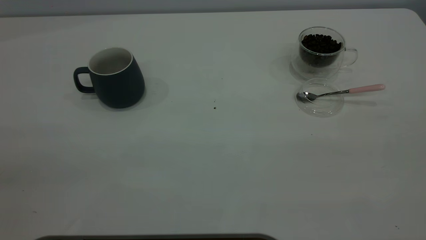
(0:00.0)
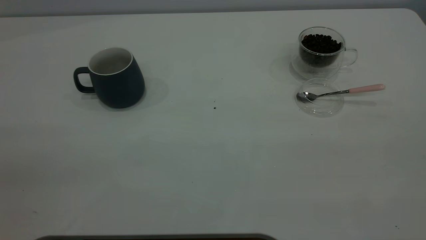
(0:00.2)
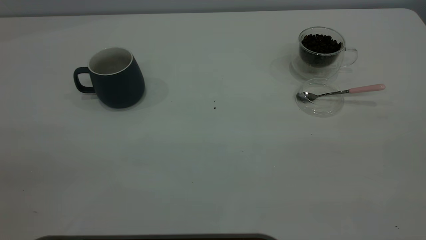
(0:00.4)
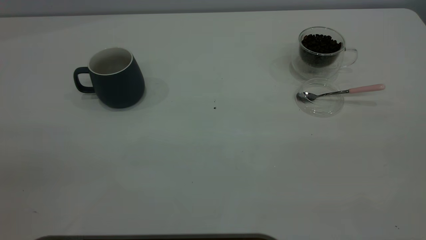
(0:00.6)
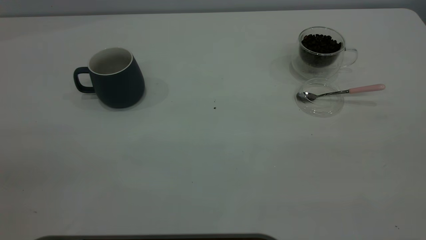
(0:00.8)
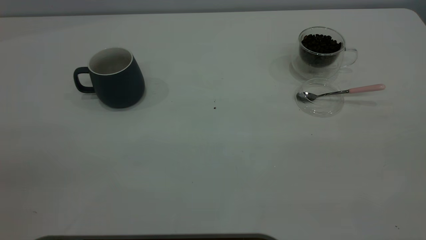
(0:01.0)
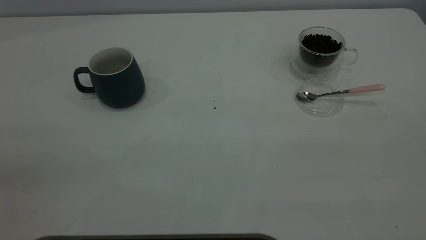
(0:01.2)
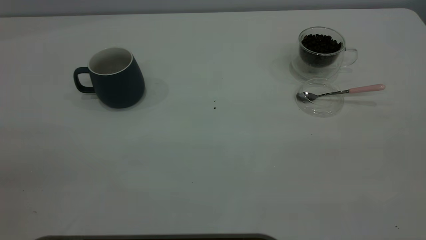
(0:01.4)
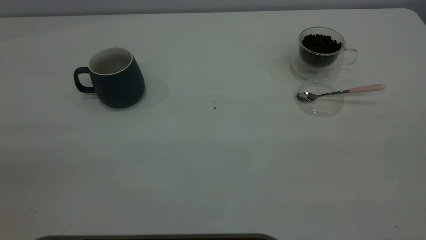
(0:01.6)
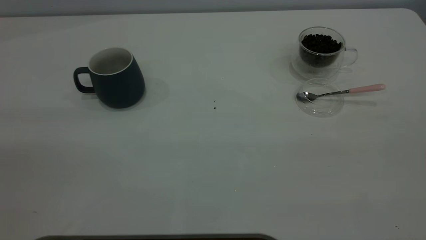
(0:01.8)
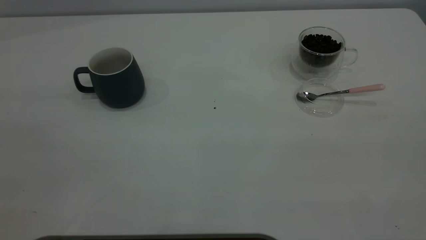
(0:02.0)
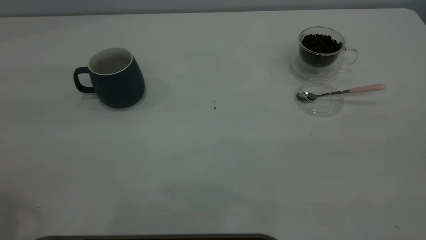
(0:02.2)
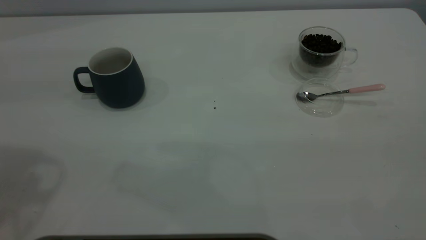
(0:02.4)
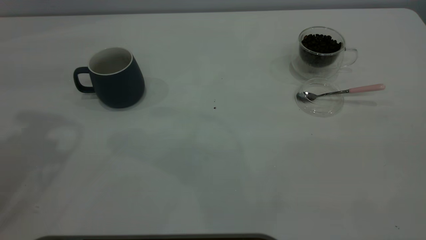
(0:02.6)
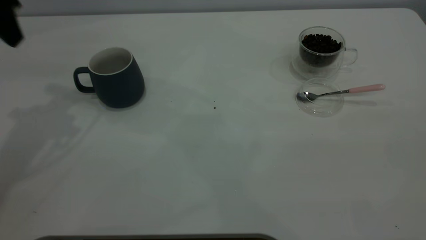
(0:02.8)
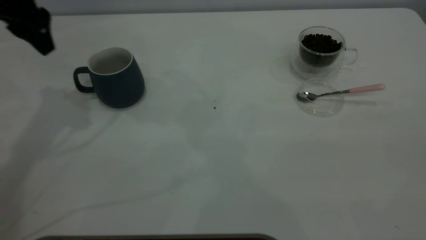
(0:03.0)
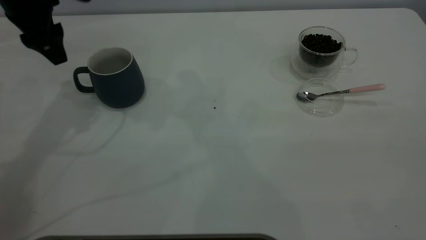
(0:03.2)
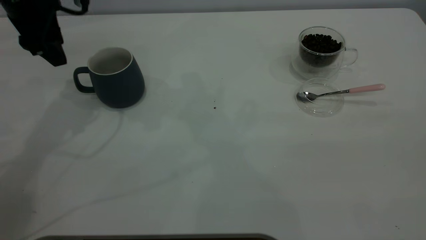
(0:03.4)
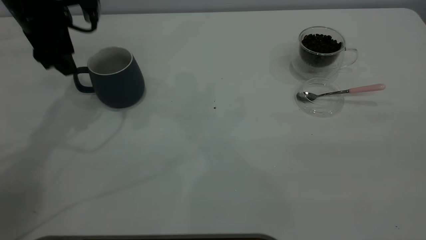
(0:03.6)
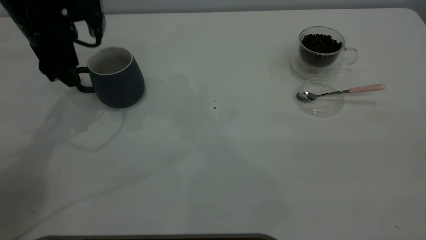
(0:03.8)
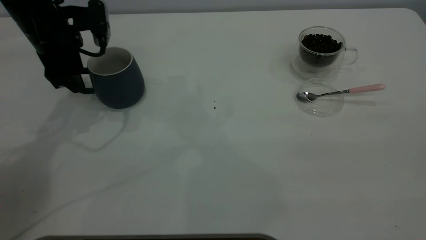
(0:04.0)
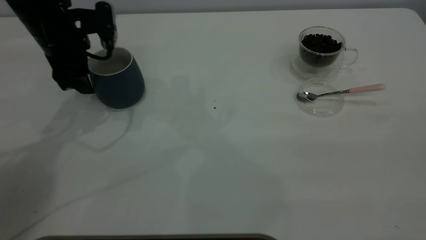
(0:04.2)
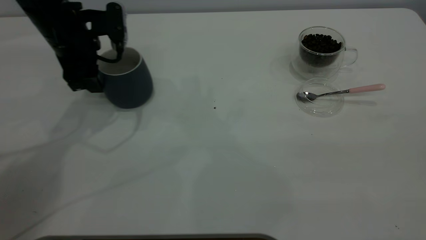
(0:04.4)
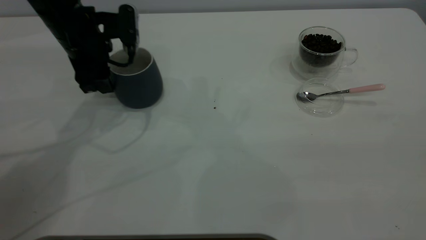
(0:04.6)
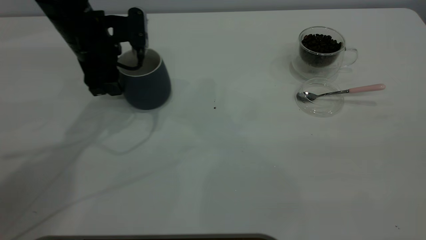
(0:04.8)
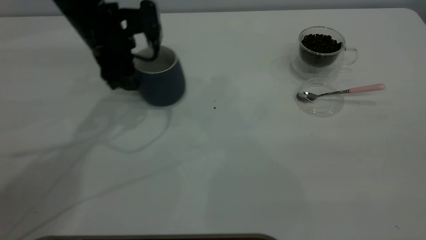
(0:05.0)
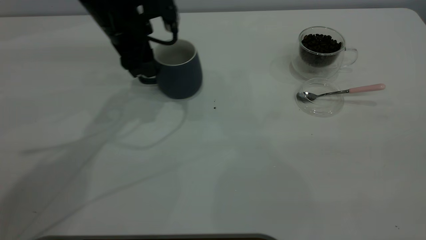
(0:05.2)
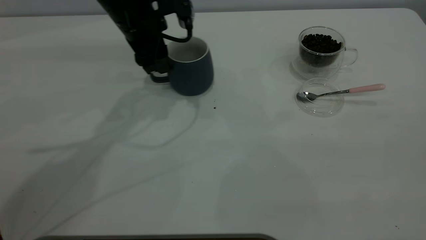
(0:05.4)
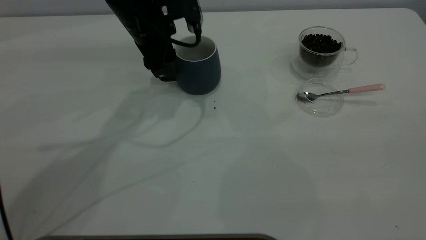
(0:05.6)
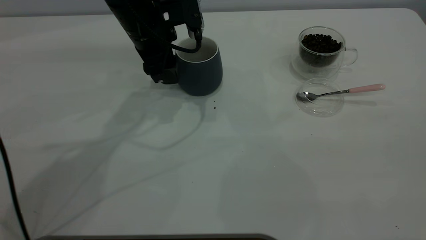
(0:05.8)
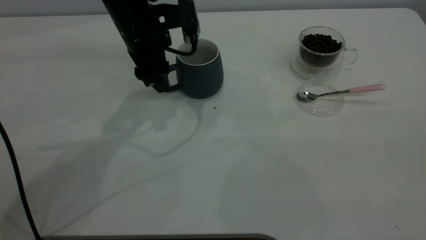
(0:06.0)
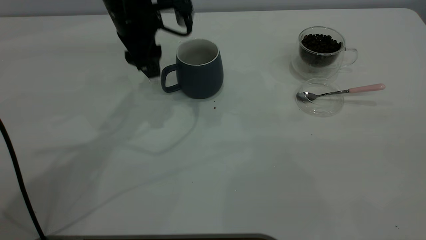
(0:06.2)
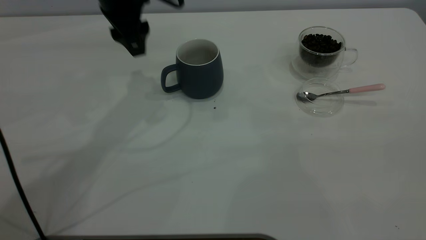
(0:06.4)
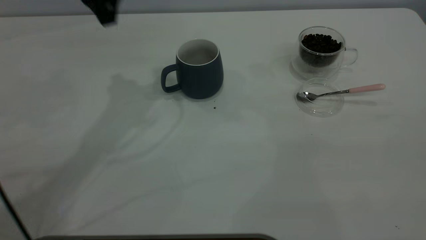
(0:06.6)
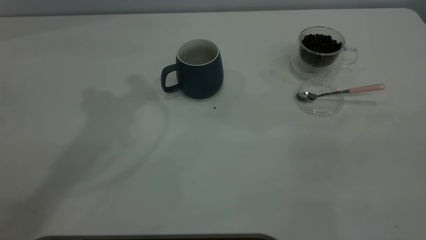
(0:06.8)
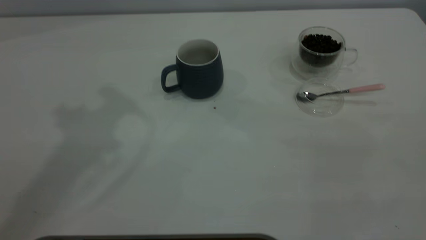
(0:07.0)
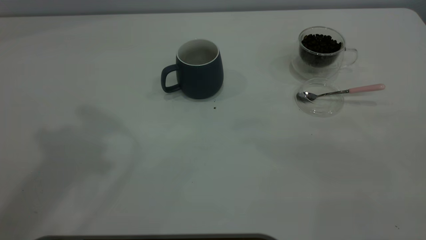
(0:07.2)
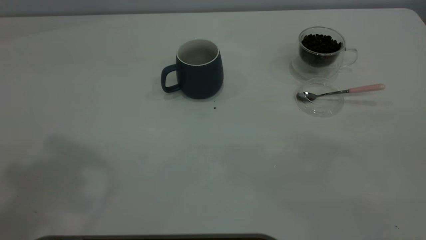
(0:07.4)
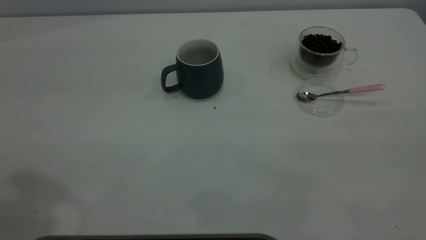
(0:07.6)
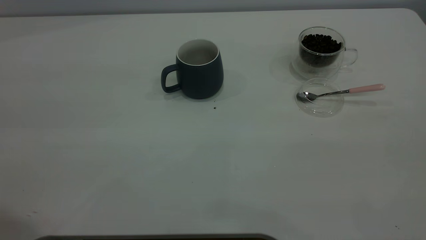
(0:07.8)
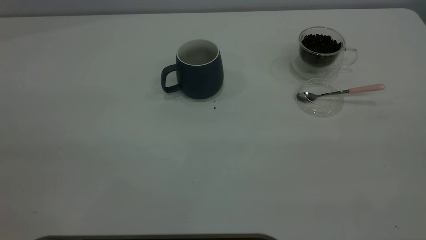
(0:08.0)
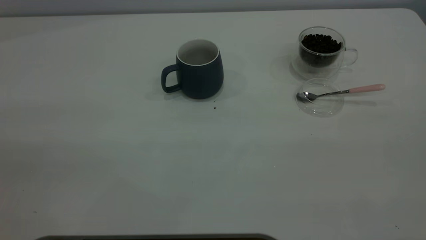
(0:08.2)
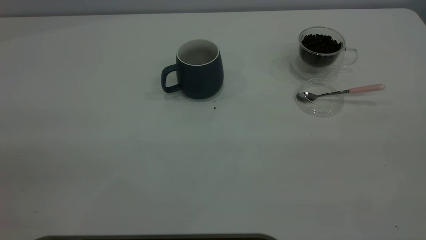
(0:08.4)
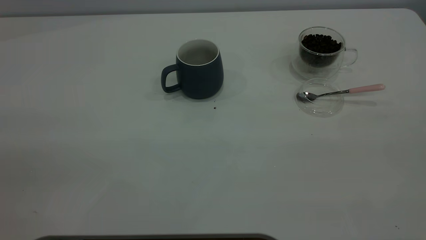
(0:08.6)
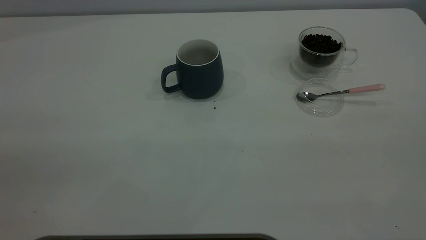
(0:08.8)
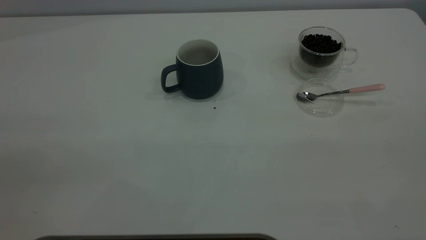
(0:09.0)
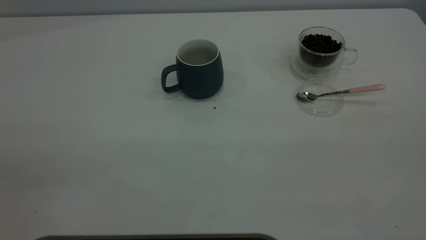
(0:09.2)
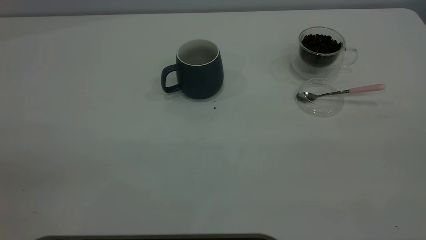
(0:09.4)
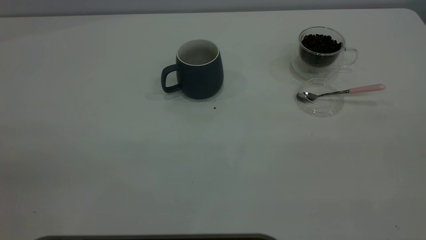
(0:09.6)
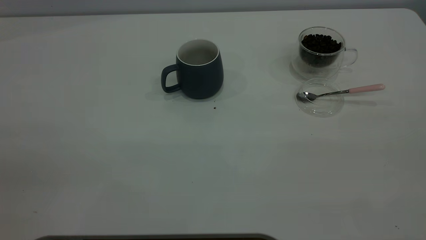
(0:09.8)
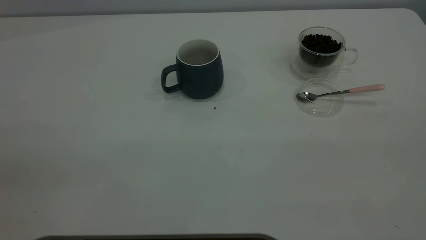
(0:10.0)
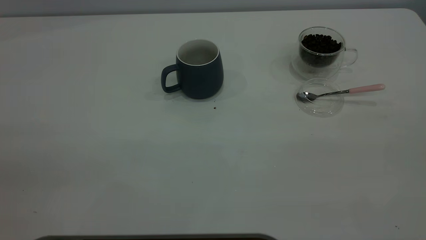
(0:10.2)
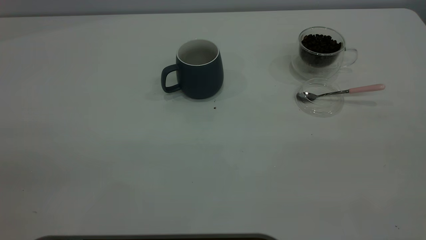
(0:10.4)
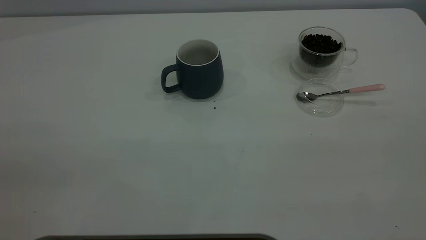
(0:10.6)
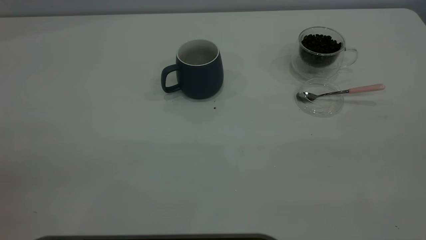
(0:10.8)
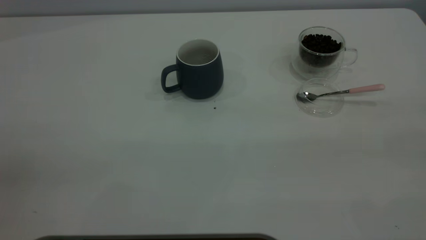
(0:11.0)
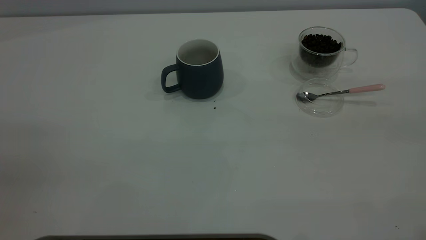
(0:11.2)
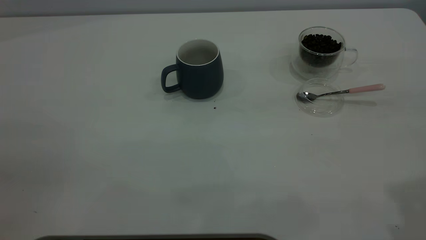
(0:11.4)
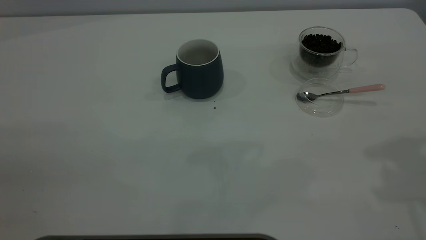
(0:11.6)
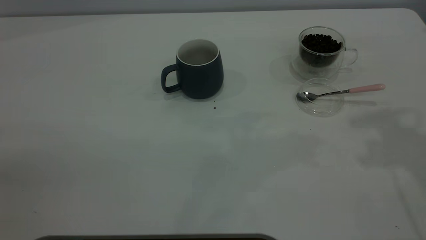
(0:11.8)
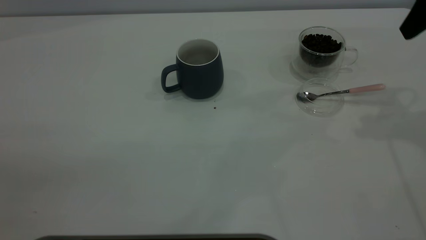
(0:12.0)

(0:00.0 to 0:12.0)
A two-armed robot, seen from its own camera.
Task of the whole recording: the left gripper place the grey cup in the center of the table, the right gripper take the pink spoon from the cup lid and scoop out the coffee beans from the coffee cup and put them into the grey cup, the right gripper put the spoon back into the cup lid.
Step, 0:00.0 - 0:06.0: Move the cup to the center of view.
0:01.6 - 0:03.0: The left gripper shifts roughly 40 cm forward.
0:03.0 - 0:04.4: The left gripper travels downward by about 10 cm.
0:04.4 - 0:06.0: The left gripper travels to the right by approximately 10 cm.
0:06.0 - 0:07.6: The left gripper heads upward, backward and to the left, covering roughly 40 cm.
0:10.4 - 0:12.0: The right gripper heads forward, covering some 35 cm.

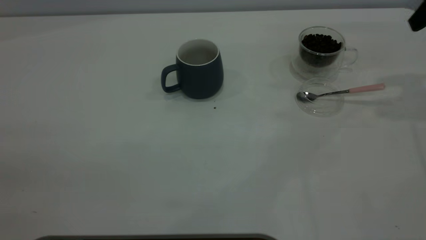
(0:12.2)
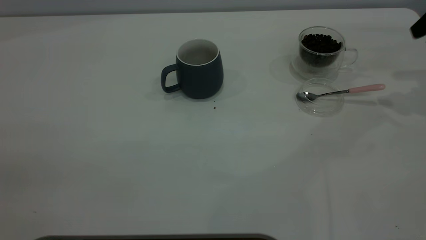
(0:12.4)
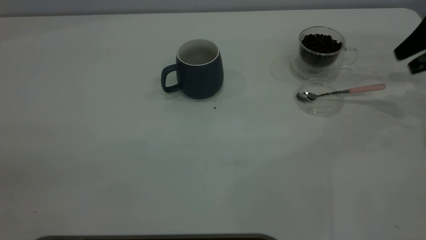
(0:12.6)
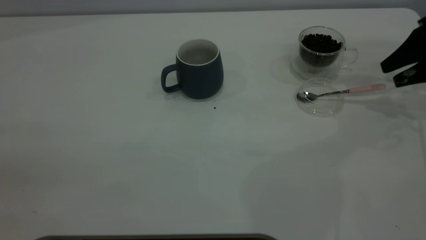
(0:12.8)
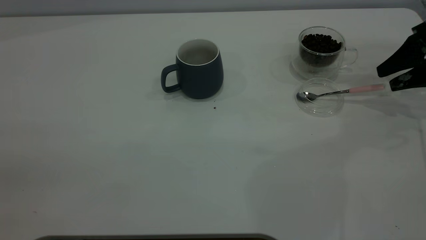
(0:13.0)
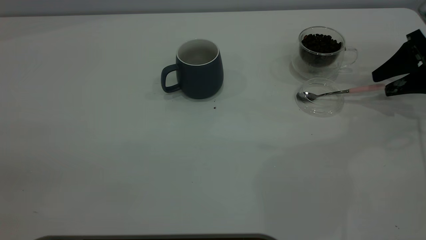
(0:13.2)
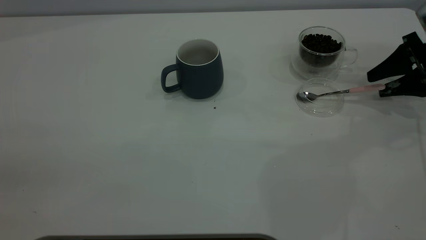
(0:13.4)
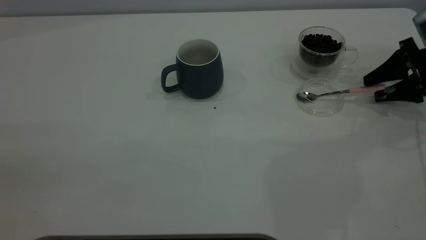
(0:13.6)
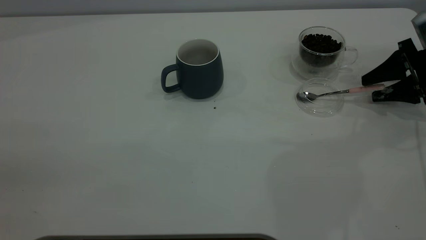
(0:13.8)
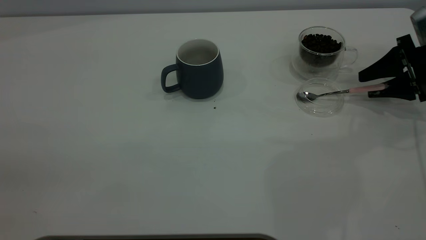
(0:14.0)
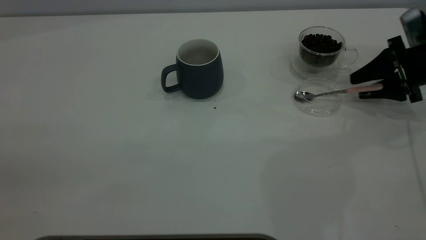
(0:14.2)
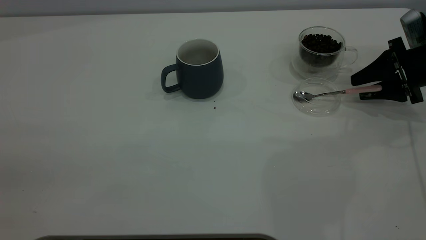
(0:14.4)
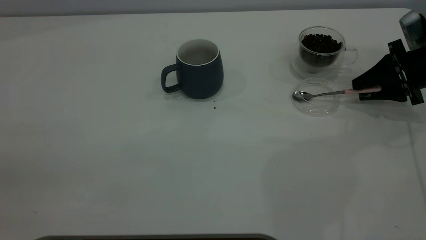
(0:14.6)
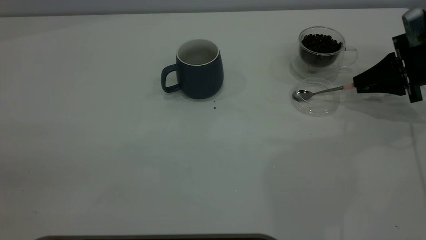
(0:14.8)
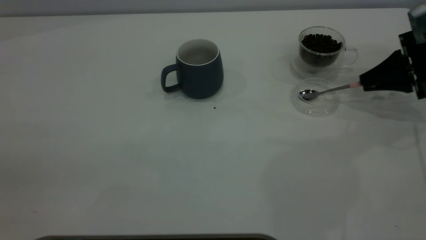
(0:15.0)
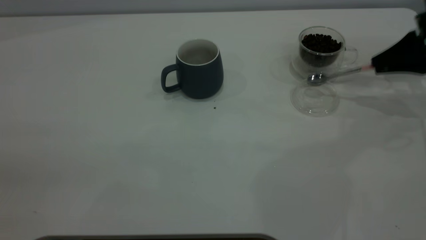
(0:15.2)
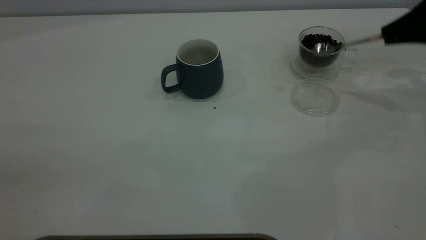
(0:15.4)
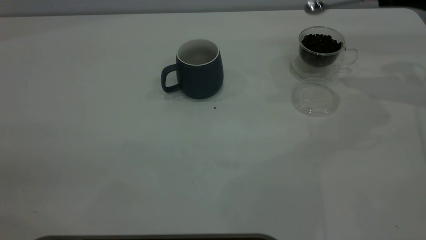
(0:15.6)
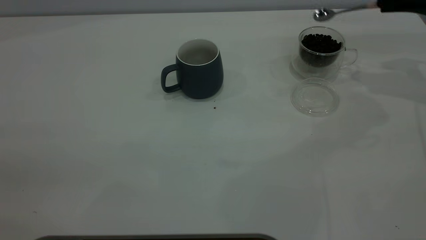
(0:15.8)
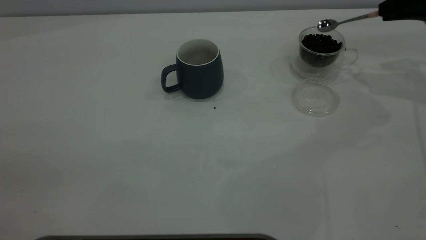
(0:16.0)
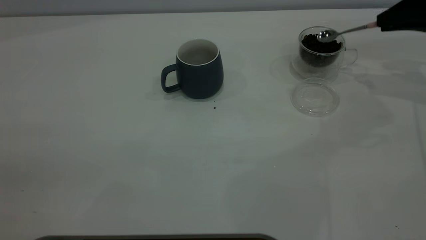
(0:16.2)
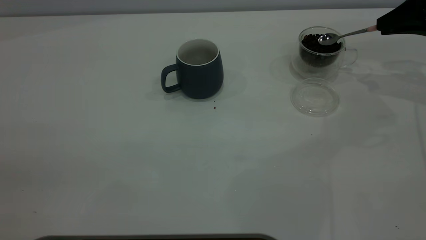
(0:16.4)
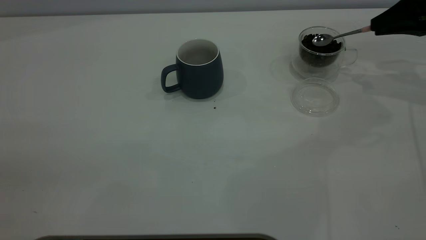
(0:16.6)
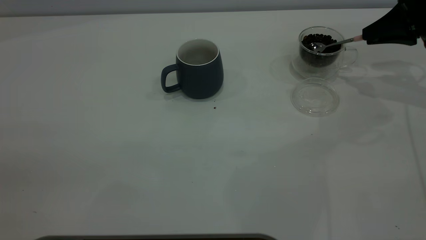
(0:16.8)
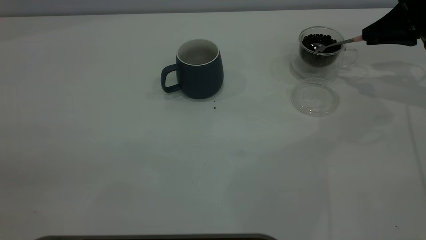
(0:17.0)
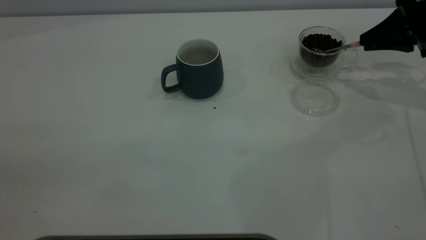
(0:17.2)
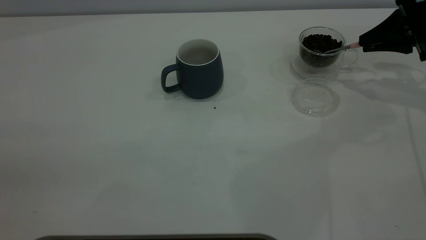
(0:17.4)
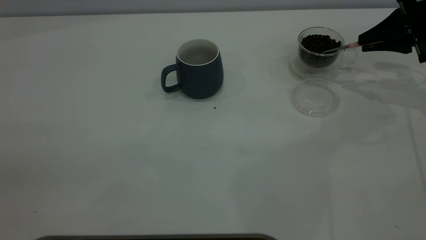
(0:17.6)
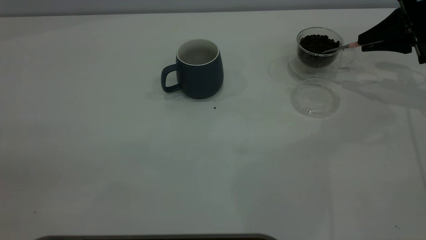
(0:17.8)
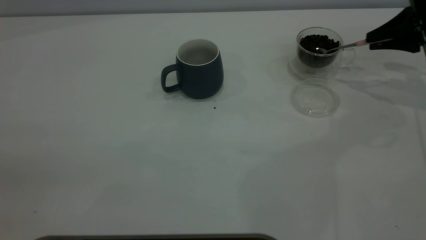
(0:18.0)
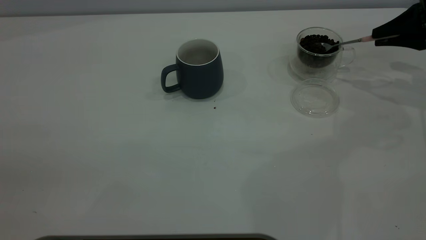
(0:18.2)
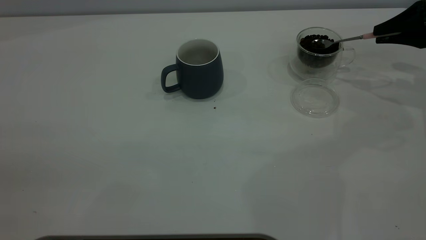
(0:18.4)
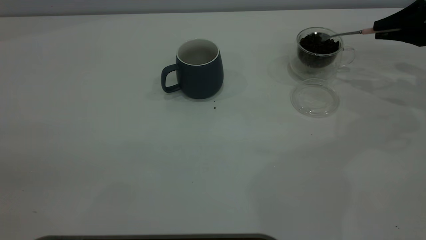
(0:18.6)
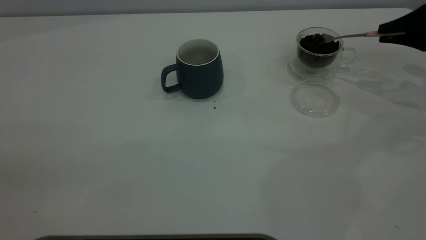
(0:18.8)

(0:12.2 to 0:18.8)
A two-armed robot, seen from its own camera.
Task of the whole recording: the left gripper place the grey cup in the center of the table, the right gripper take the pink spoon from the cup lid and scoop out the coffee beans from the coffee cup and put them into the grey cup, the right gripper put the spoon back into the cup lid.
Step, 0:12.2 - 0:15.2: Pick up the spoon.
0:12.2 - 0:13.8: The right gripper moves downward, approximately 15 cm.
0:13.8 - 0:15.4: The right gripper goes roughly 10 cm upward, and closes its fingers.
0:15.4 - 0:17.2: The grippers stay close to where they were, moving slightly.
